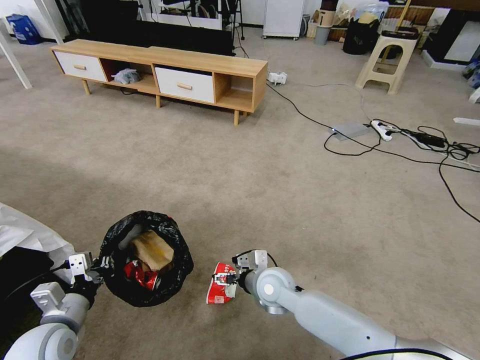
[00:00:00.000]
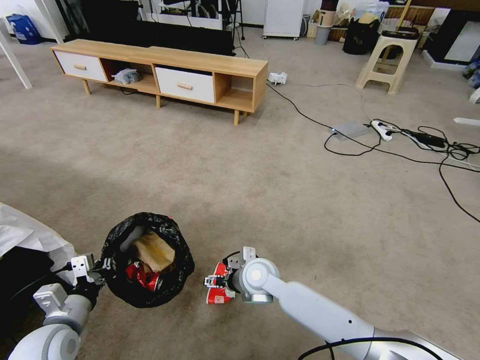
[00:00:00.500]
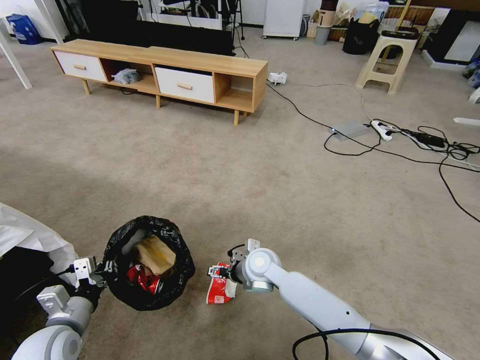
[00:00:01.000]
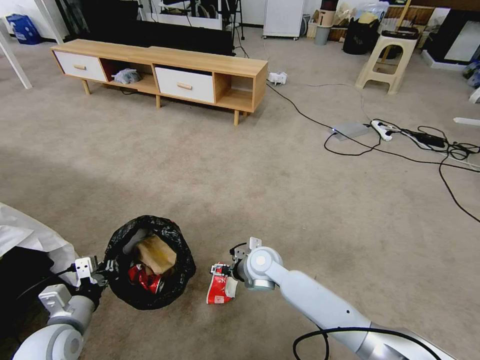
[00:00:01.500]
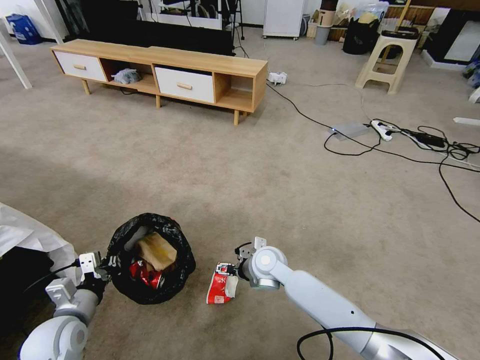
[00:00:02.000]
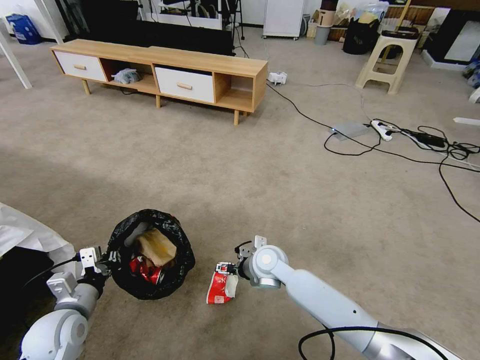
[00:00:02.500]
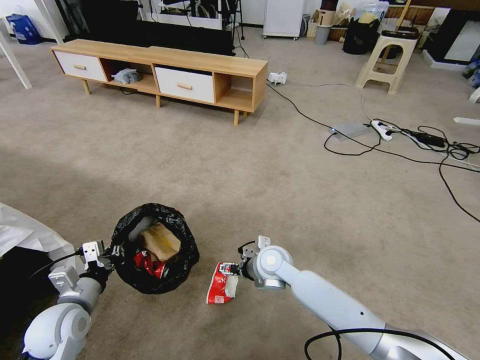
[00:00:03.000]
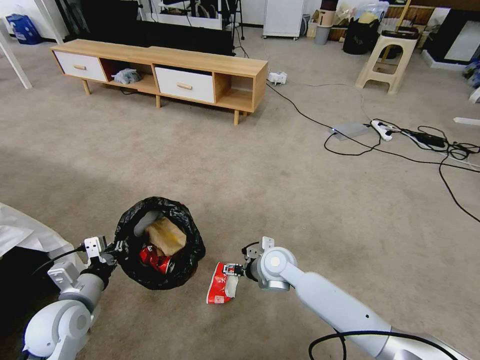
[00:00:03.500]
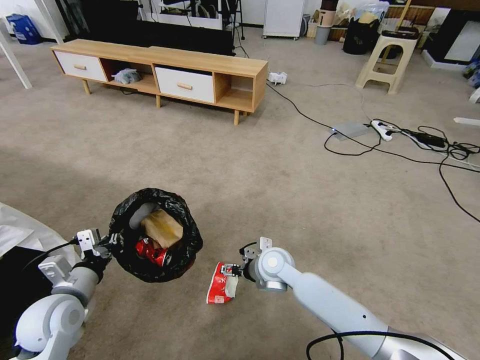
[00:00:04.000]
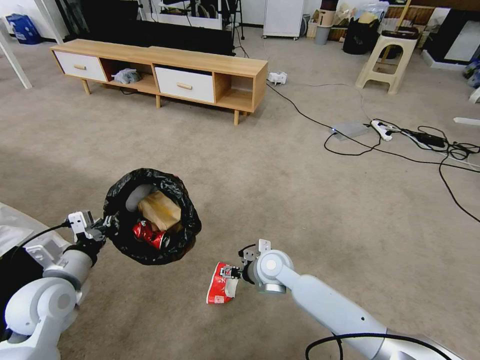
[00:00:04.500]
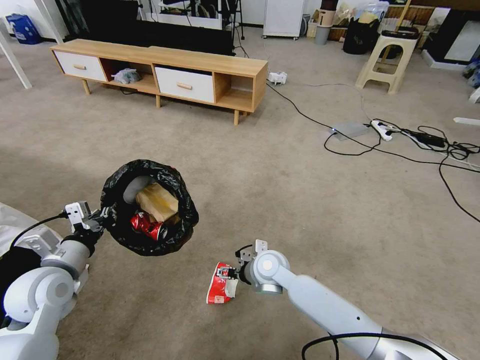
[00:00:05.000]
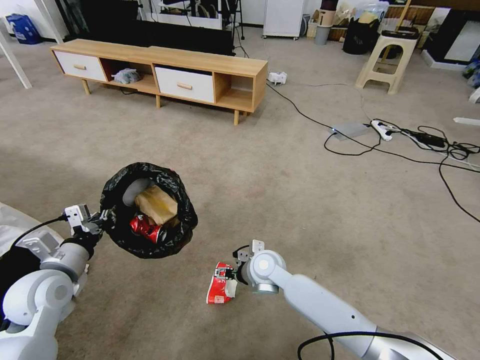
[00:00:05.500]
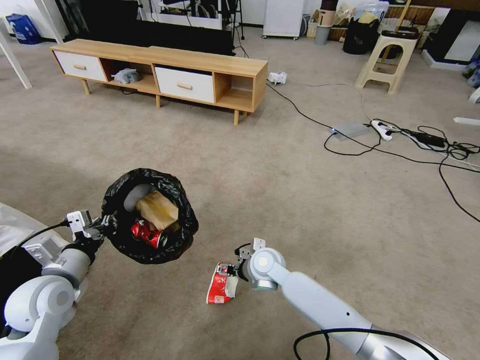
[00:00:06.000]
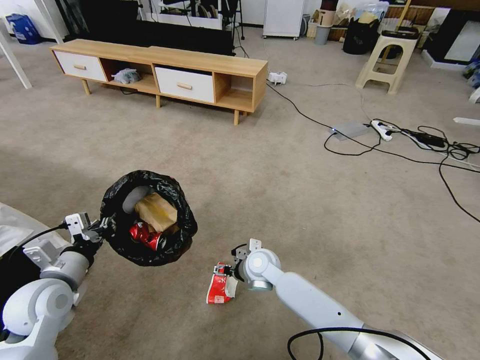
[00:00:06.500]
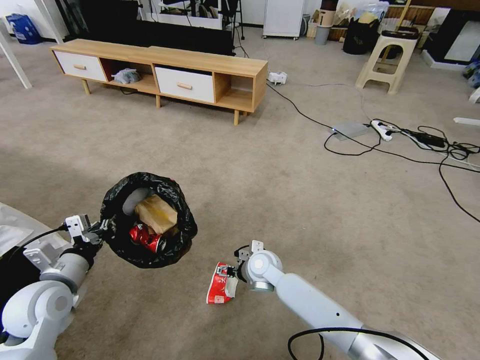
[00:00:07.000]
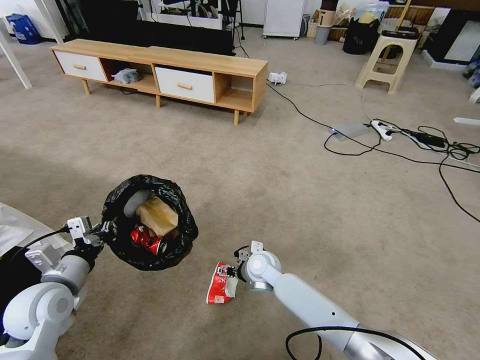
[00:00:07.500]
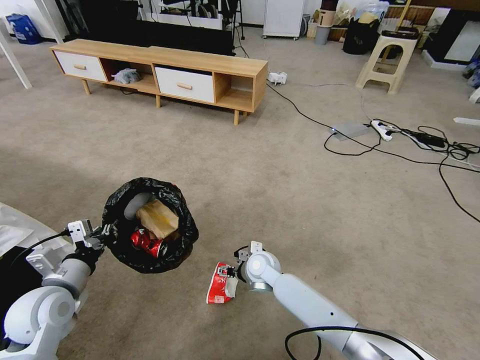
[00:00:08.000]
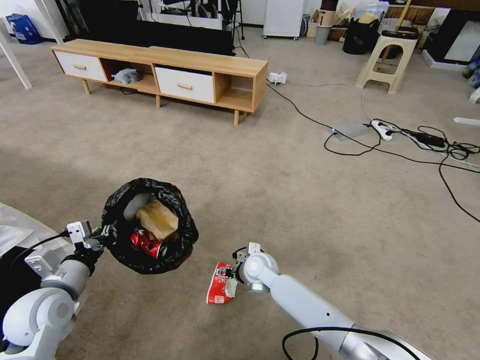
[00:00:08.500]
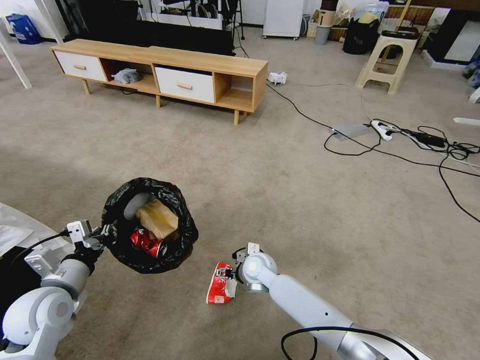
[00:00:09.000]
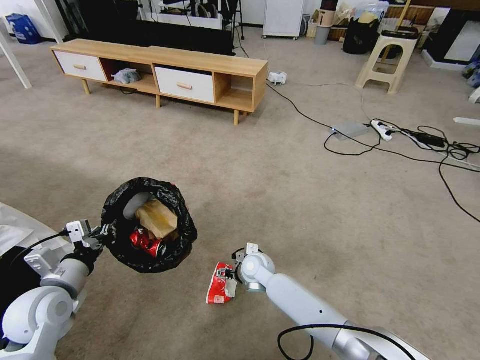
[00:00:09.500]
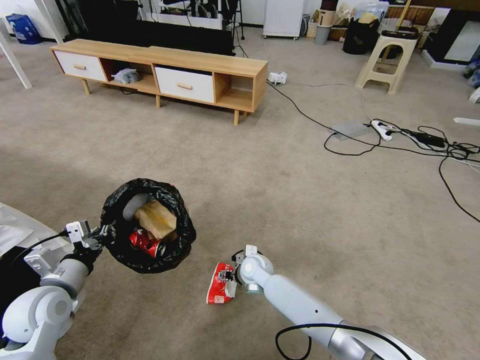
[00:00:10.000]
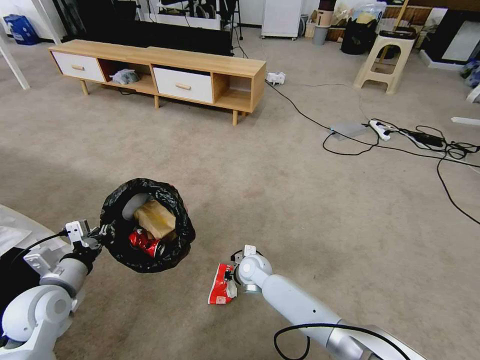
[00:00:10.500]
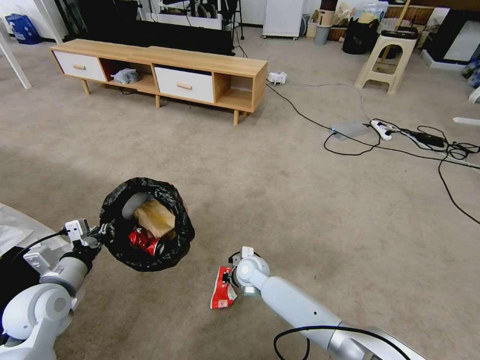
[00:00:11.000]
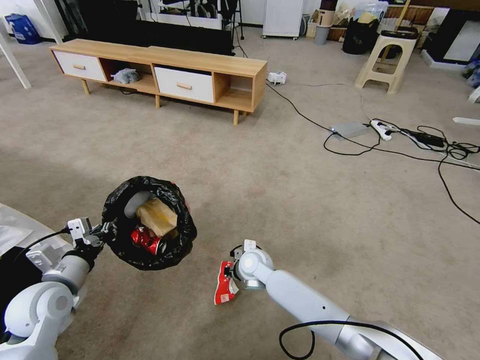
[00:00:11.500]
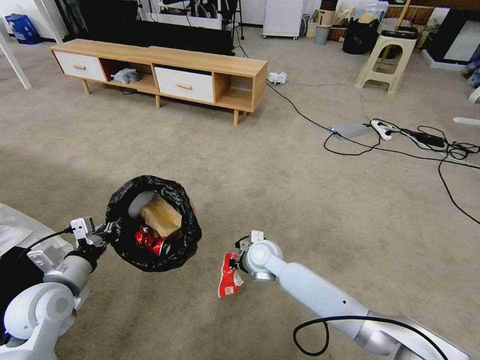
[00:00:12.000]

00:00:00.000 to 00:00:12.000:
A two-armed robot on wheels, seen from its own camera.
Task of the whole recording: Pick up the trash bin, then pick up the garbage from the floor and place it into the trash bin.
00:00:00.000 to 00:00:02.000: The right gripper heads forward, covering approximately 5 cm.
00:00:02.000 to 00:00:04.000: The left gripper shifts some 5 cm upward.
00:00:04.000 to 00:00:06.000: The grippers make only small movements.
00:00:06.000 to 00:00:08.000: The grippers stay close to where they were, moving slightly.
00:00:08.000 to 00:00:10.000: There are only small adjustments of the grippers.
00:00:10.000 to 00:00:12.000: The right gripper shifts approximately 10 cm upward, and closes up.

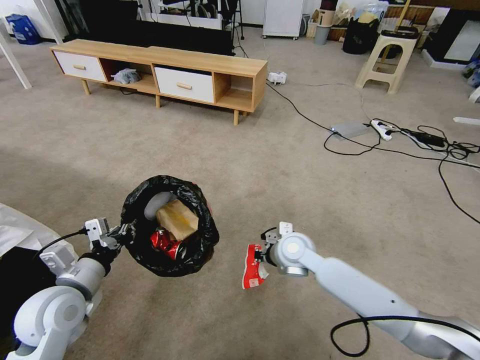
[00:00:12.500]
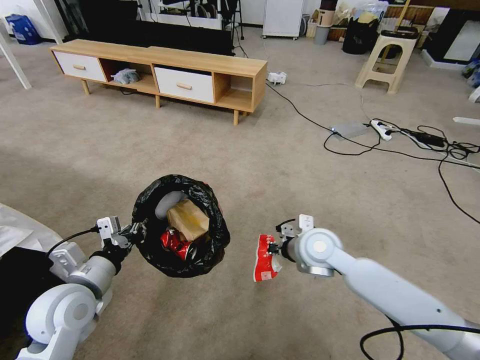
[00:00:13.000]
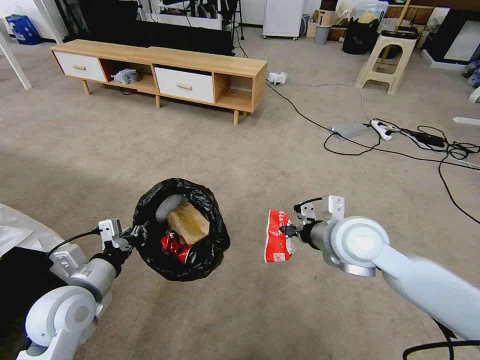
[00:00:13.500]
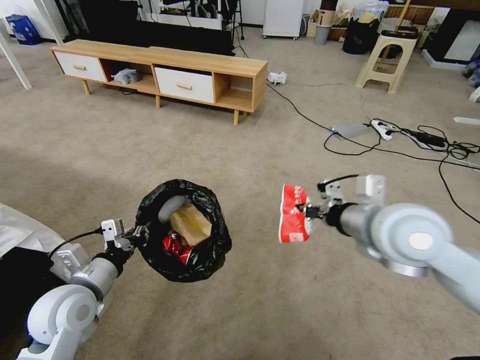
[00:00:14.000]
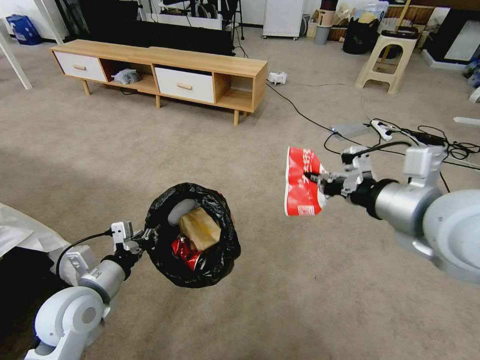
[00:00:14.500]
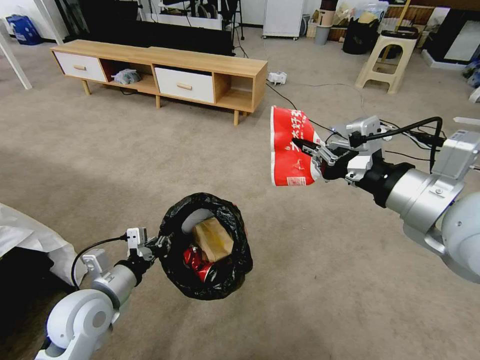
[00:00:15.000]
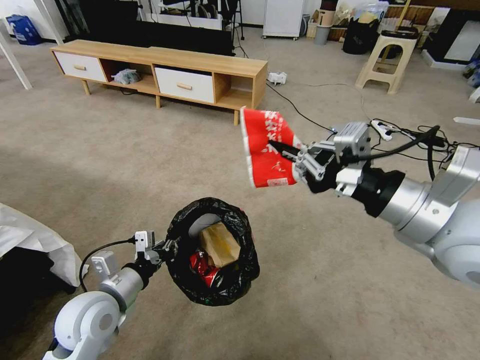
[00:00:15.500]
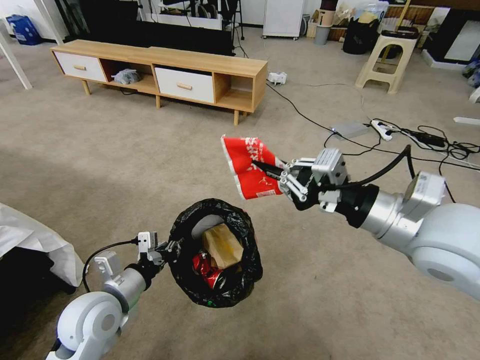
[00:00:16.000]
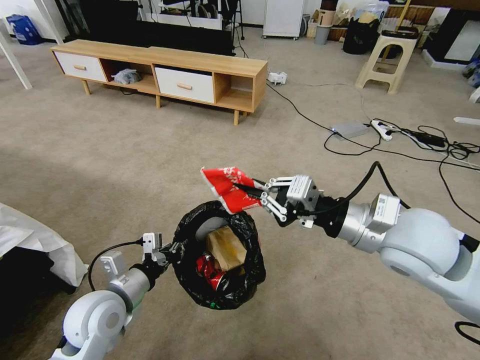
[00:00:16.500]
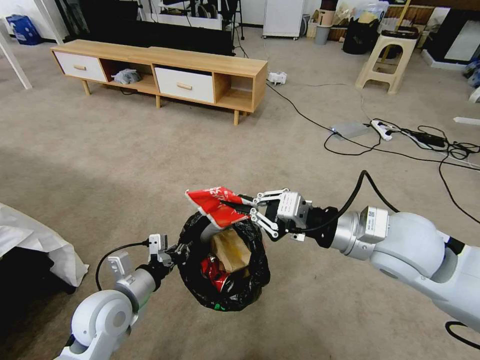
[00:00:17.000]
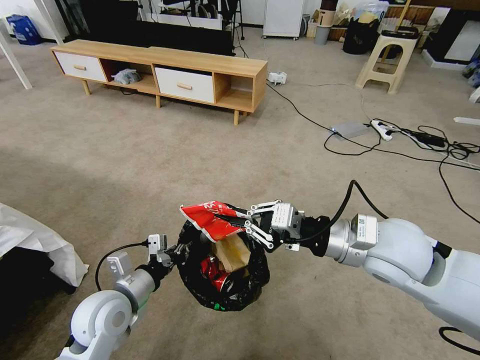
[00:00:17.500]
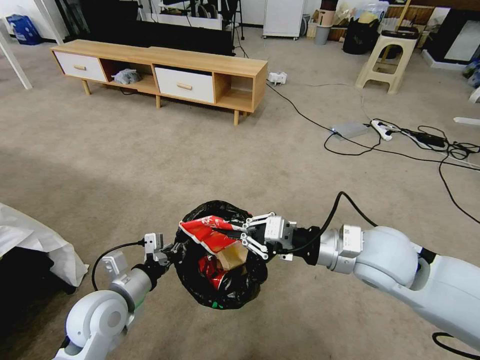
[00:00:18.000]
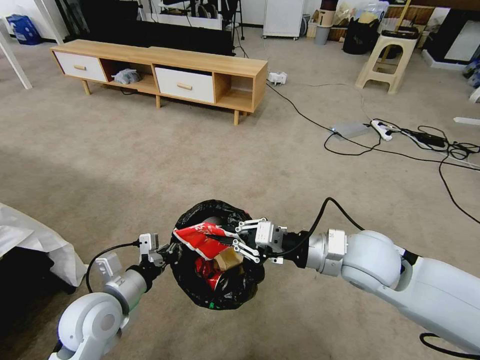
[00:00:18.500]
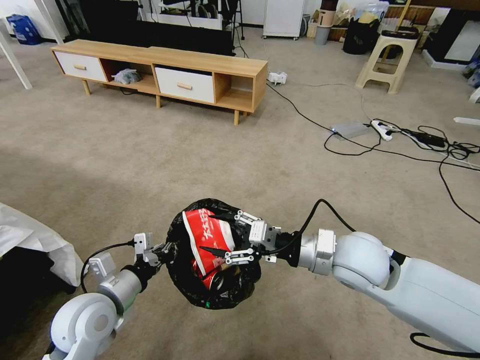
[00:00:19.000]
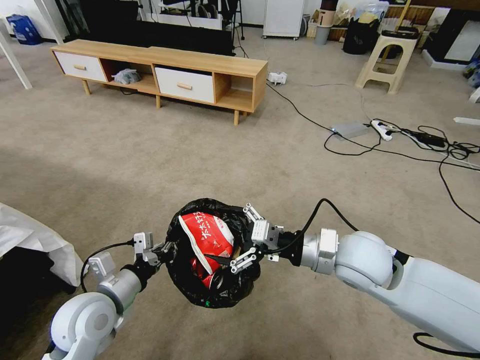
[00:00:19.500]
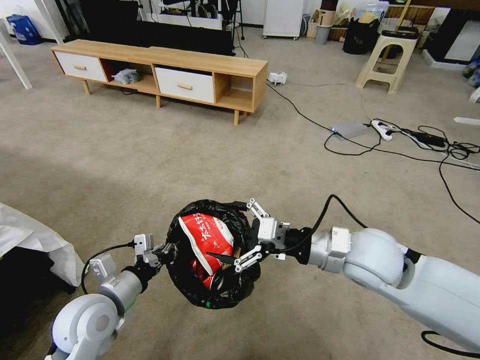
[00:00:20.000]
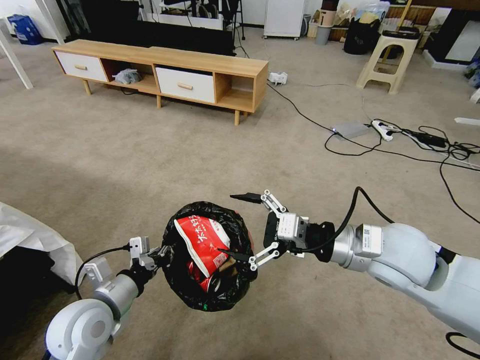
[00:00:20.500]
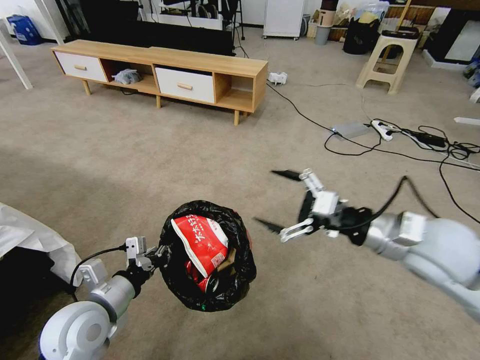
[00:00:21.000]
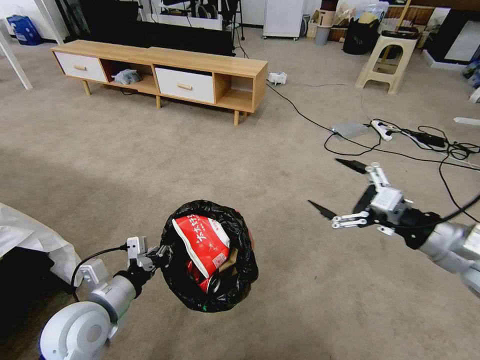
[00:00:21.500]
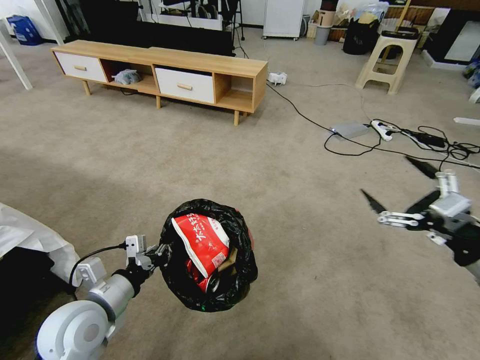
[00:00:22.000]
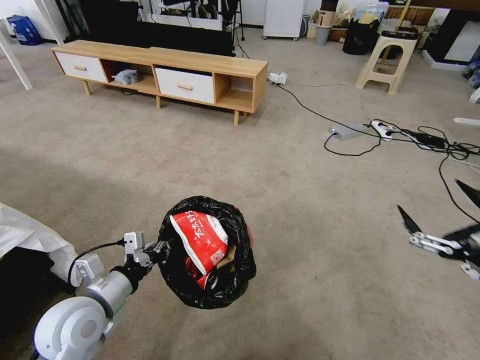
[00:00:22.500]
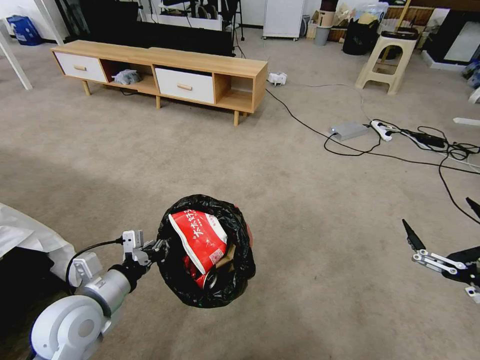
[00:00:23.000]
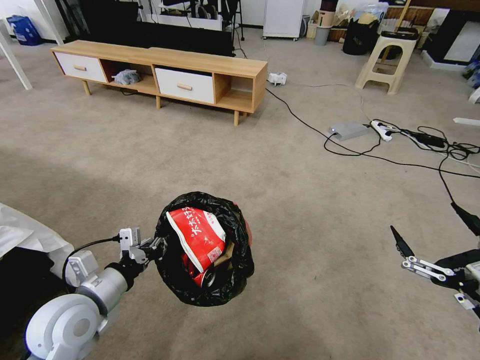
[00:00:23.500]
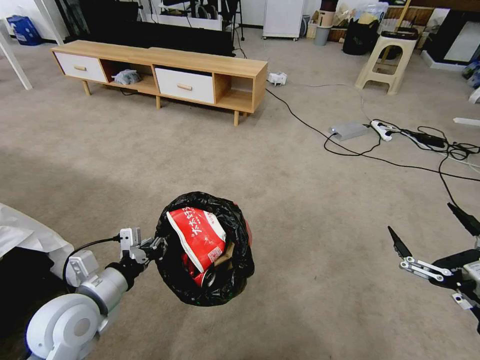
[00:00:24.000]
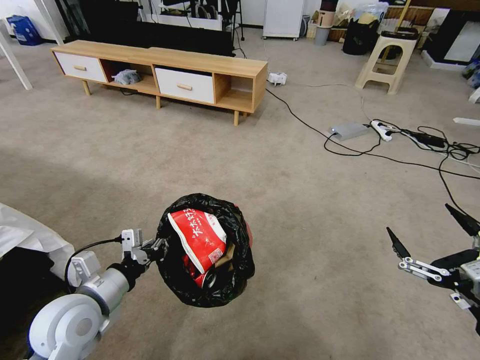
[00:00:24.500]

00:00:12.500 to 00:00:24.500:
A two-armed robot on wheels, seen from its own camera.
Task of the whole recording: Pick up the trash bin, then pick up the garbage from the floor and place it into the trash bin.
00:00:12.500 to 00:00:14.500: The right gripper heads upward, backward and to the right, covering roughly 35 cm.
00:00:14.500 to 00:00:16.500: The right gripper is displaced downward by roughly 5 cm.
00:00:16.500 to 00:00:18.500: The right gripper moves downward, some 5 cm.
00:00:18.500 to 00:00:20.500: The right gripper opens.
00:00:20.500 to 00:00:22.500: The right gripper is displaced backward and to the right by roughly 25 cm.
00:00:22.500 to 00:00:24.500: There are only small adjustments of the grippers.
